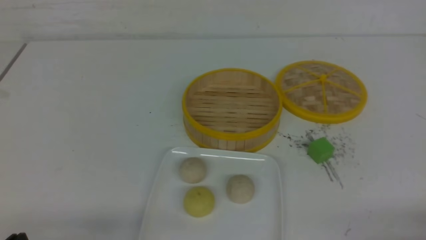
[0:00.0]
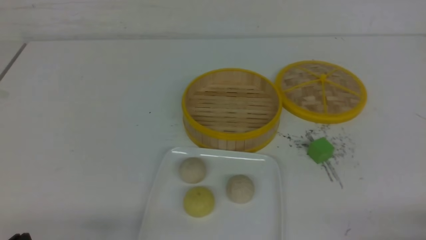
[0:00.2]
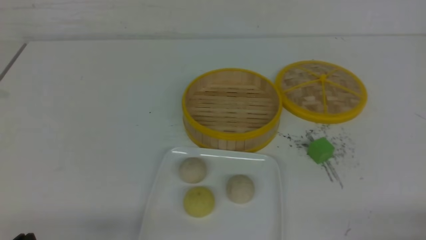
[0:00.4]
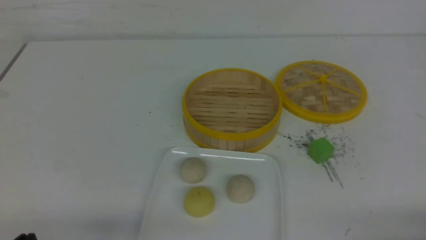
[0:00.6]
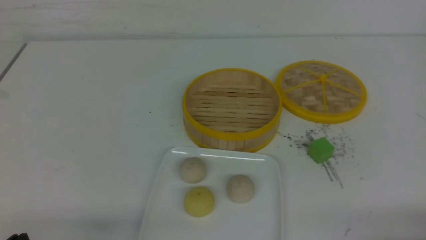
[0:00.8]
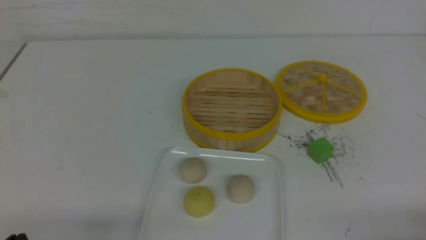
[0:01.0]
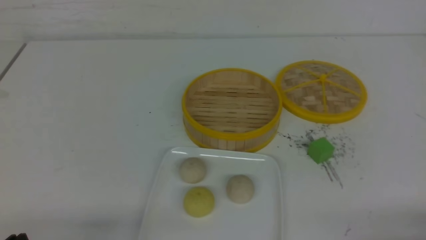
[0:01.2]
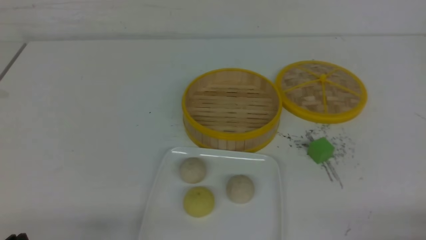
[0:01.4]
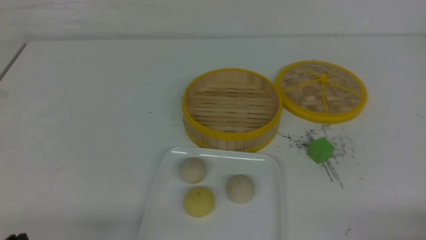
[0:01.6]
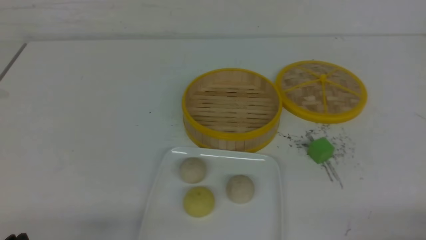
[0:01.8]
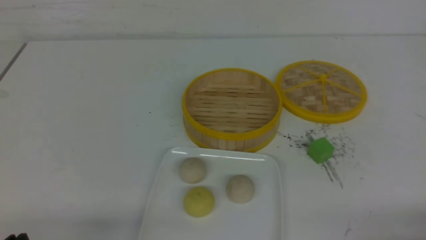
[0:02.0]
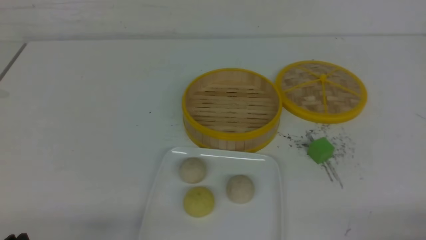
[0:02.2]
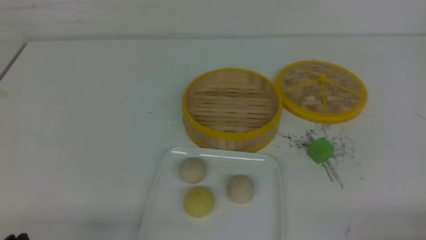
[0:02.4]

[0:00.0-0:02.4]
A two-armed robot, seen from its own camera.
0:00.0 to 0:02.4: Both grippers stay about where they are.

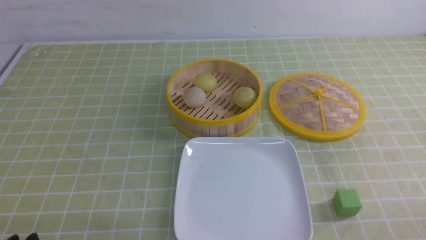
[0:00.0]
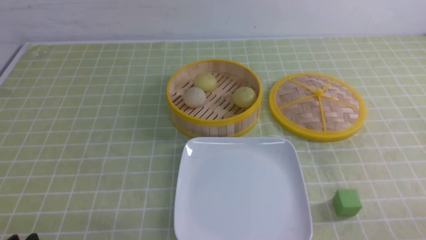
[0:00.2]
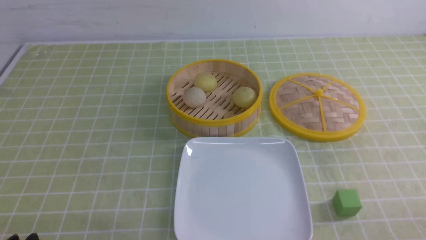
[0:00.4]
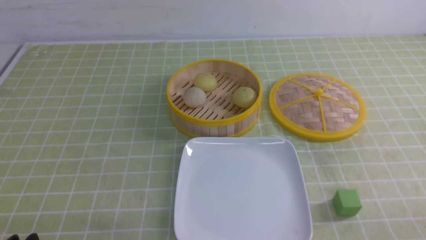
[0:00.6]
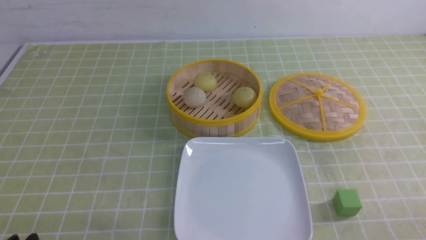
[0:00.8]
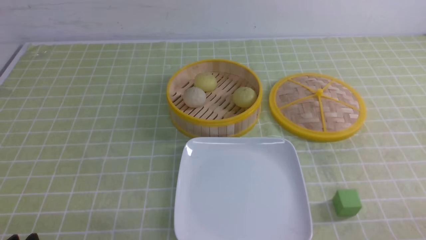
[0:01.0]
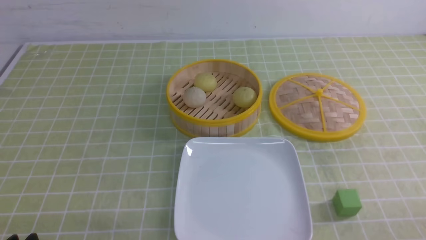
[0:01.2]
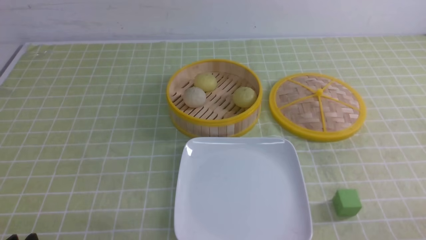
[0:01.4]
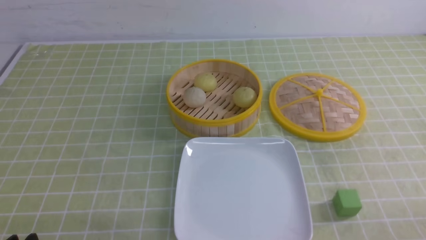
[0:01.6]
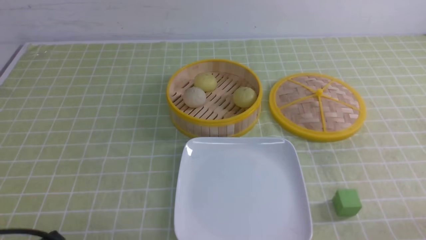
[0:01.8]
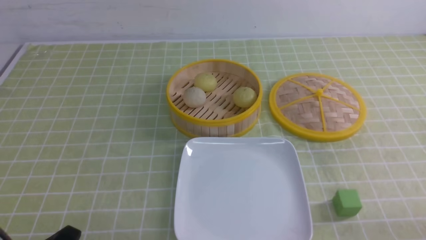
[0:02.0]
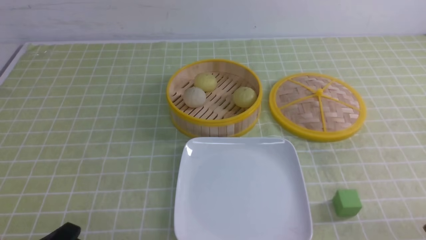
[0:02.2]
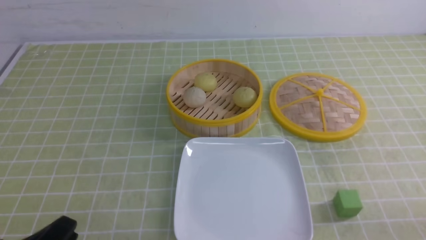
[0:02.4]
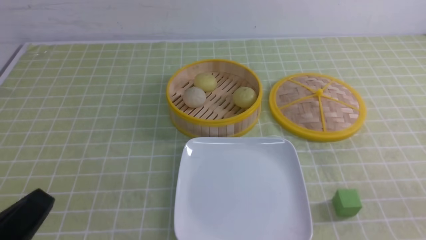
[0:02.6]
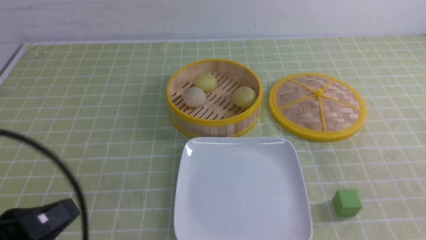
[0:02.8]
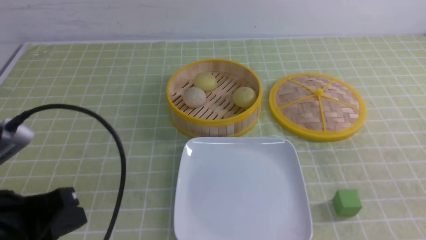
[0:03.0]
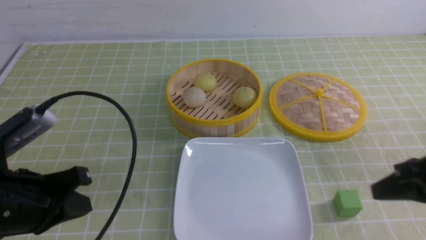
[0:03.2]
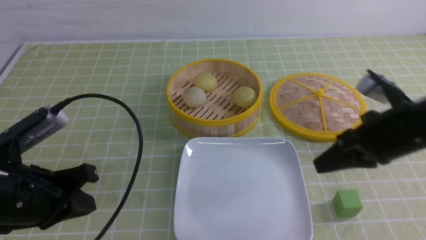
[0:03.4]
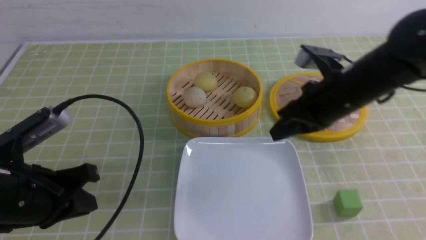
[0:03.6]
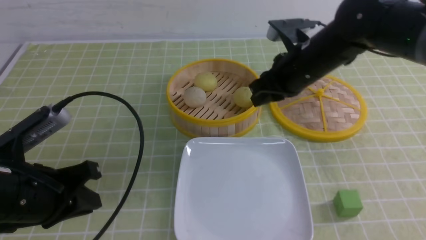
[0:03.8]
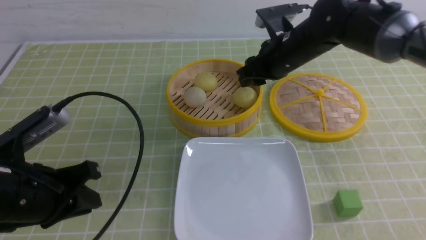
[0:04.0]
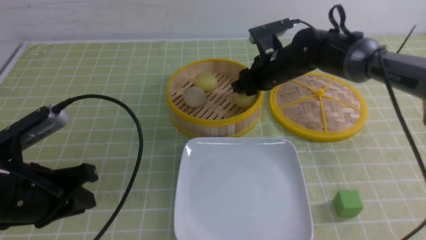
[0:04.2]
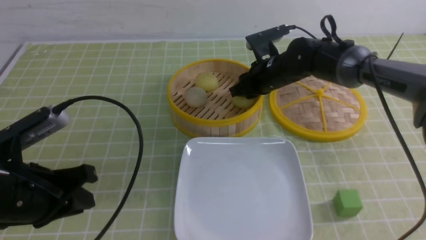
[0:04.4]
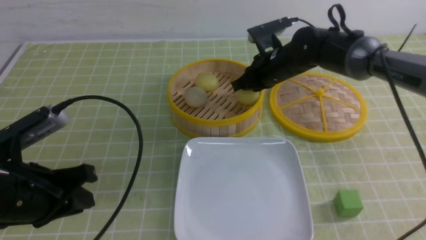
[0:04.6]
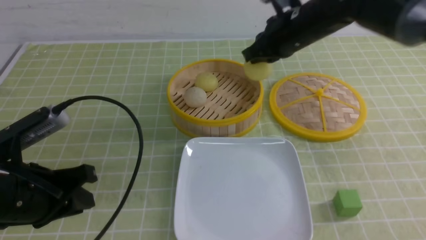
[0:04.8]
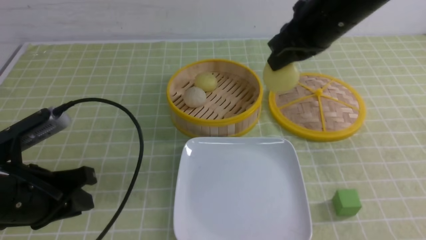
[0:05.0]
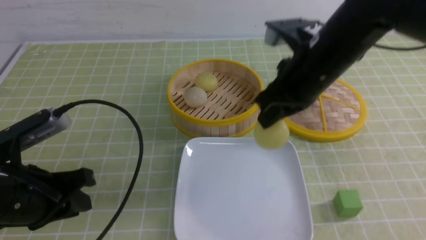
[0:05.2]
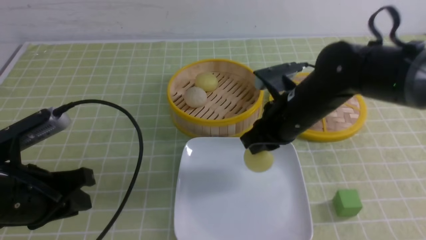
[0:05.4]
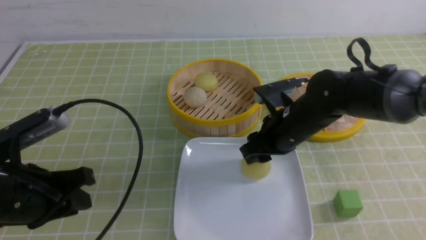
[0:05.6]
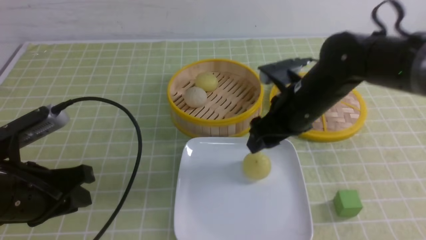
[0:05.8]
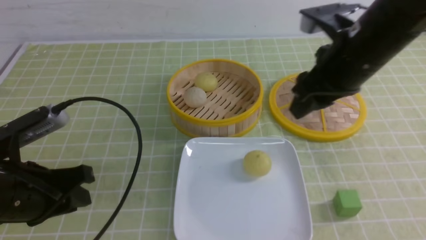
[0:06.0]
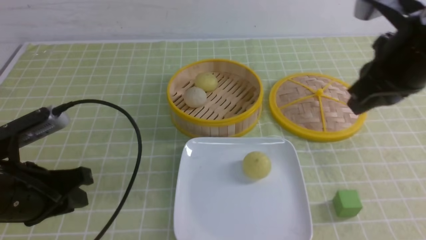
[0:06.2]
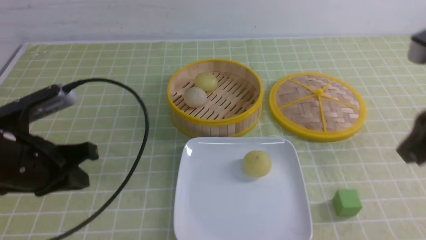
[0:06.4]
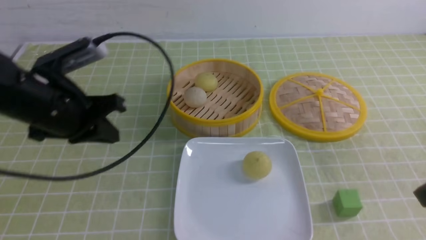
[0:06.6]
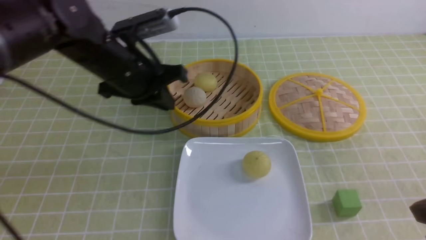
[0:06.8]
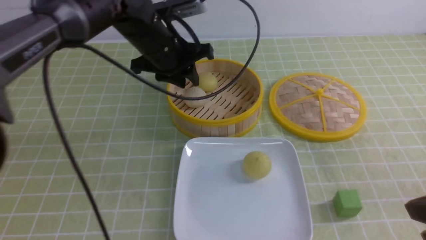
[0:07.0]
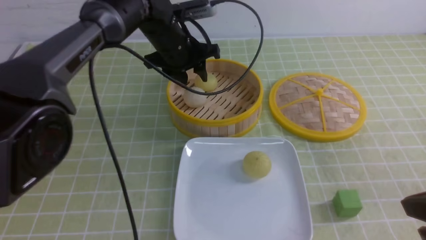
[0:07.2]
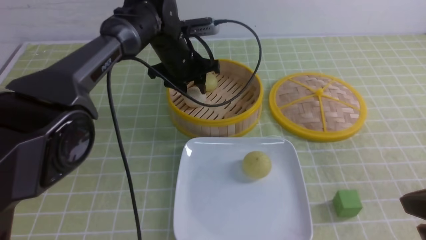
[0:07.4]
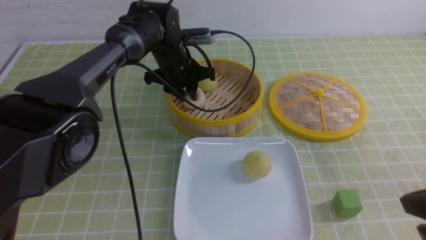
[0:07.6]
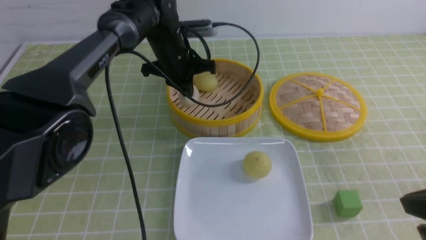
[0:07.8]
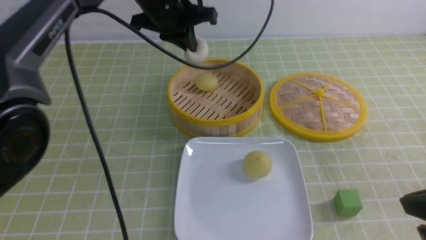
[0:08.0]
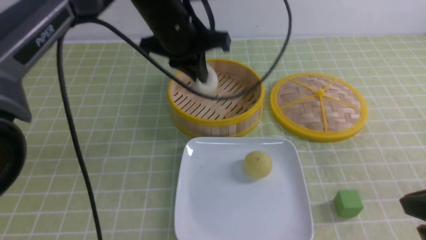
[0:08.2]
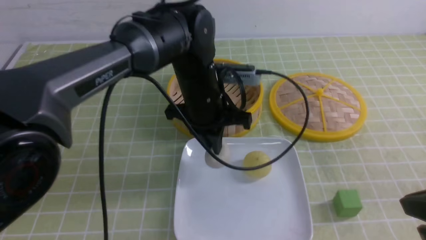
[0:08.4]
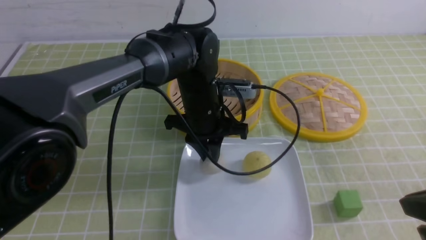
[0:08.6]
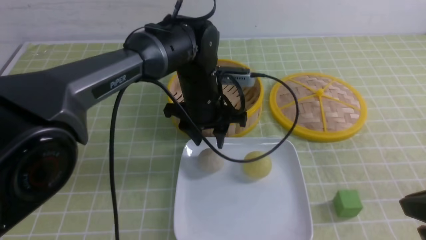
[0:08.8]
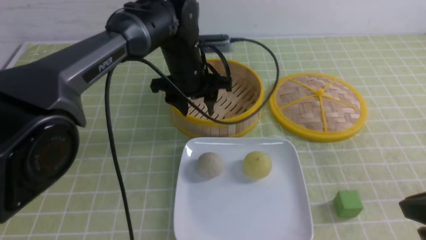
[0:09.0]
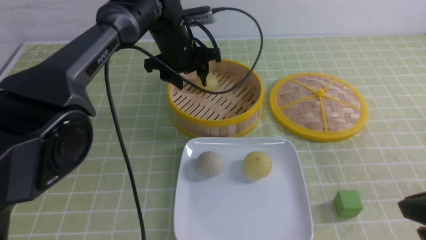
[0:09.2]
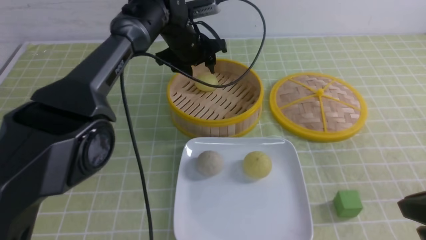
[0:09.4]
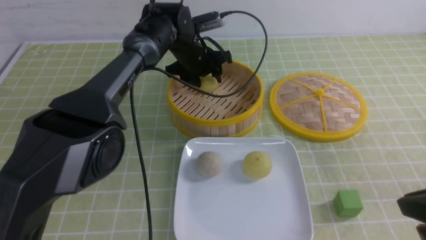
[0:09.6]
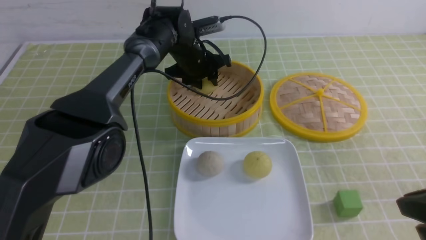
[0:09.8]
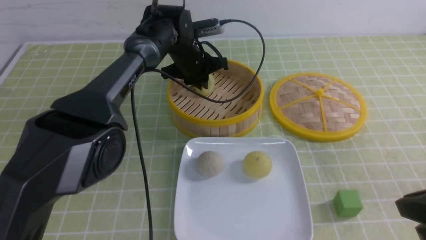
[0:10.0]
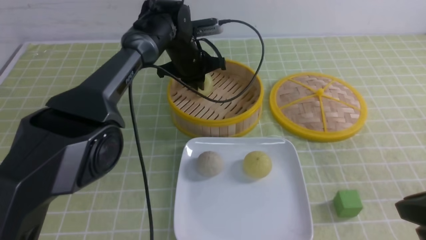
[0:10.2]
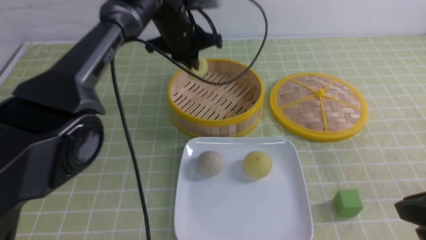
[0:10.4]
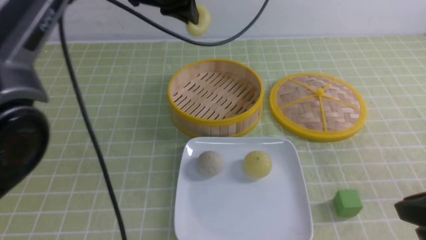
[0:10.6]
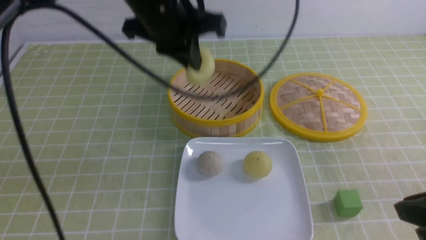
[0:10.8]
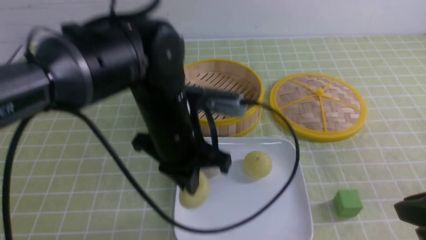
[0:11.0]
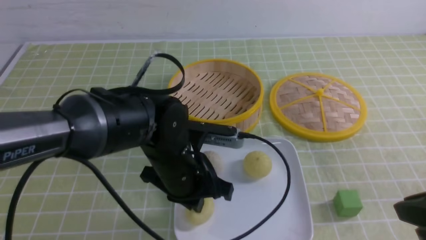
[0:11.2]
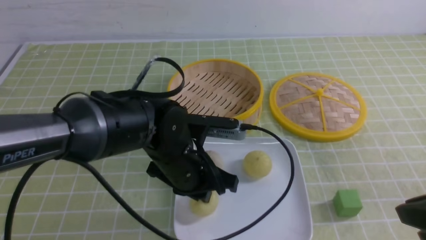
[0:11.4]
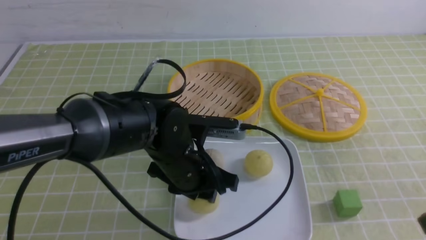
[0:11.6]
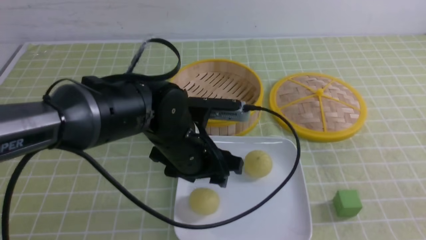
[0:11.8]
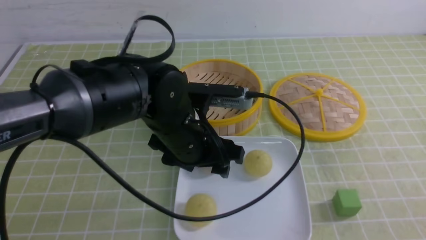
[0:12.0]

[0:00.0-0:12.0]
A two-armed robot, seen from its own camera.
Step, 0:00.0 to 0:04.4: use the right arm to grab the steamed stuffed bun that is closest to it.
Step, 0:04.6 to 0:05.6: use the right arm to put the steamed stuffed bun into the plate.
Step, 0:05.8 to 0:07.6: use the left arm to grab the steamed stuffed bun that is closest to it.
Step, 0:07.8 to 0:08.6: use the left arm to put the steamed stuffed bun into the plate.
Step, 0:08.8 to 0:10.0: use the left arm to grab the steamed stuffed bun that is closest to it.
Step, 0:10.2 to 0:11.4: use the left arm to put the steamed stuffed bun into the plate.
0:01.6 to 0:03.0: The left gripper is displaced upward and forward by about 10 cm, and closes.
0:03.0 to 0:04.4: The right gripper shifts some 40 cm forward and to the left, and opens up. The left gripper is displaced forward by approximately 5 cm.
0:04.4 to 0:06.0: The right gripper is displaced backward and upward by about 20 cm, and closes, then opens again.
0:06.0 to 0:07.6: The right gripper goes some 20 cm backward and to the right, and closes; the left gripper moves forward and to the right, about 35 cm, and closes, then opens again.
0:07.6 to 0:09.0: The left gripper opens up.
0:09.0 to 0:10.4: The left gripper travels upward by roughly 5 cm, and closes its fingers.
0:10.4 to 0:12.0: The right gripper shifts roughly 10 cm backward, and closes its fingers, while the left gripper goes about 20 cm backward, and opens its fingers.

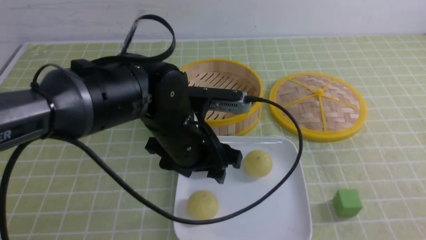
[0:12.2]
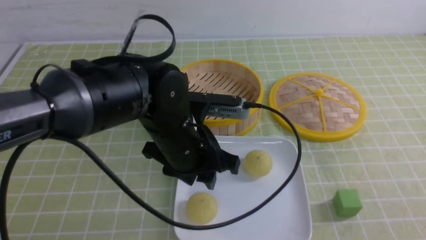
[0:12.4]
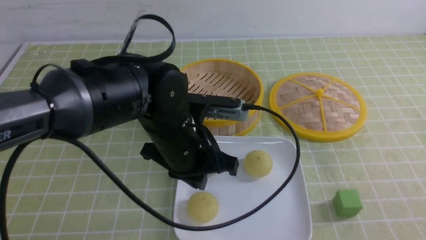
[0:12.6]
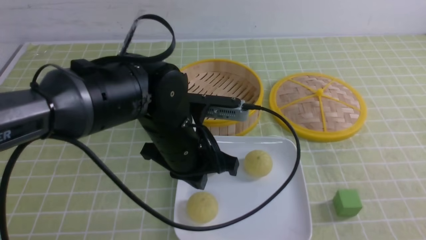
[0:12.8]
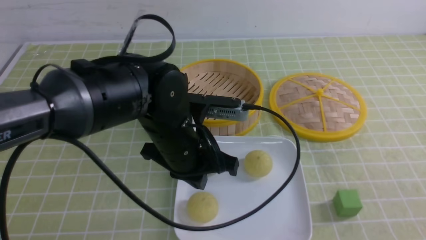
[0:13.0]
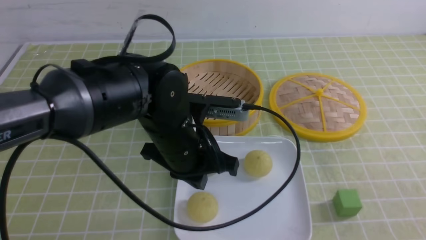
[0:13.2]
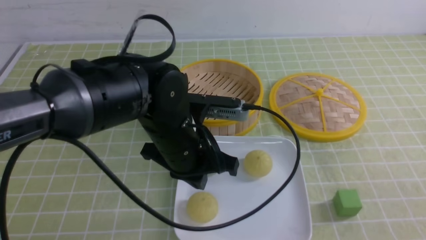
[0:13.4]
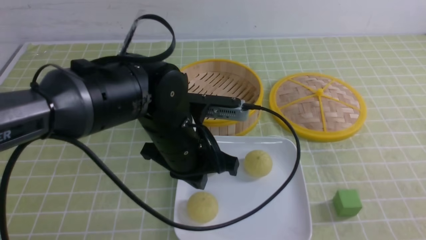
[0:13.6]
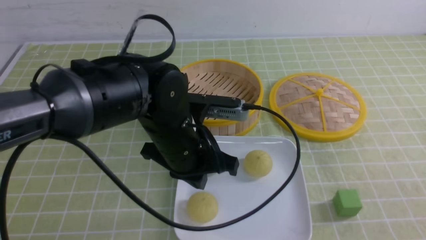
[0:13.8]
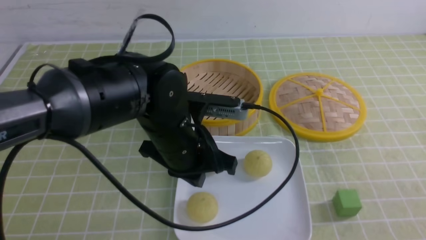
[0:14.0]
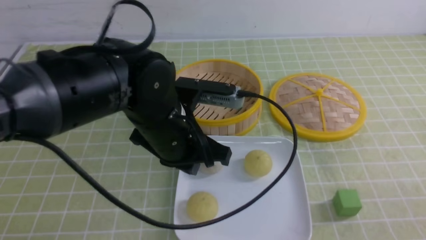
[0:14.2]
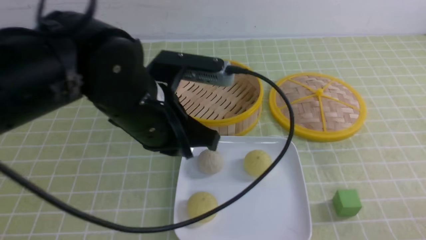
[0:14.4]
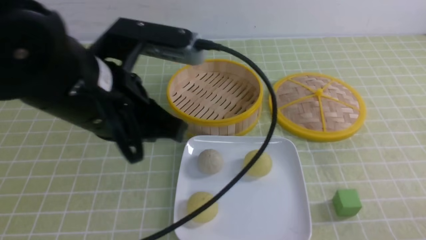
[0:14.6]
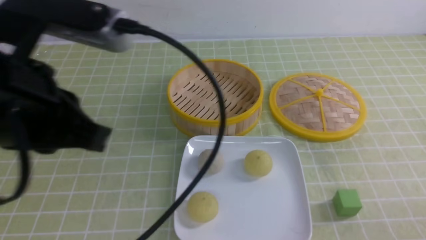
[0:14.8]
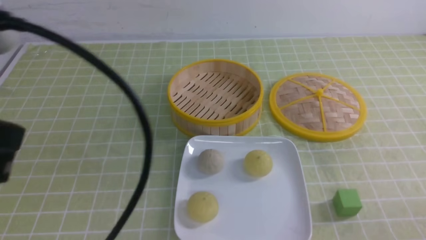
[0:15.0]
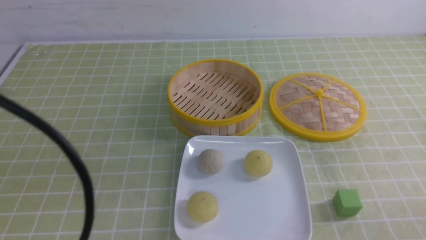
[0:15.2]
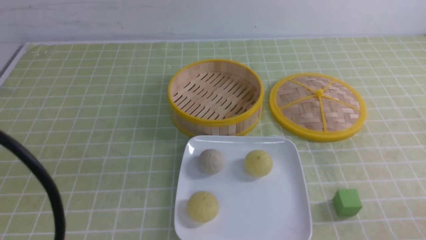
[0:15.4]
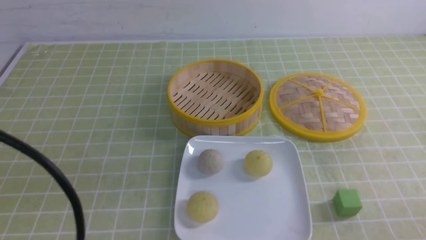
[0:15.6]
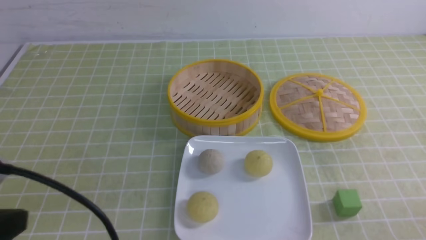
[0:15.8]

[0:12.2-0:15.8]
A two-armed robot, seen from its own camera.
0:12.2 to 0:14.0: The left gripper closes.
0:14.0 to 0:15.8: The left gripper goes some 25 cm backward, to the left and upward. Meanwhile the right gripper travels downward by roughly 5 cm.
